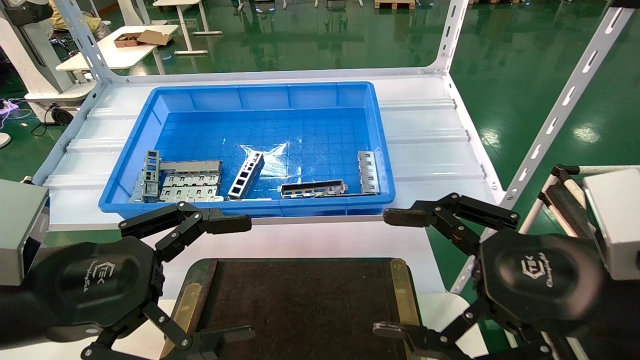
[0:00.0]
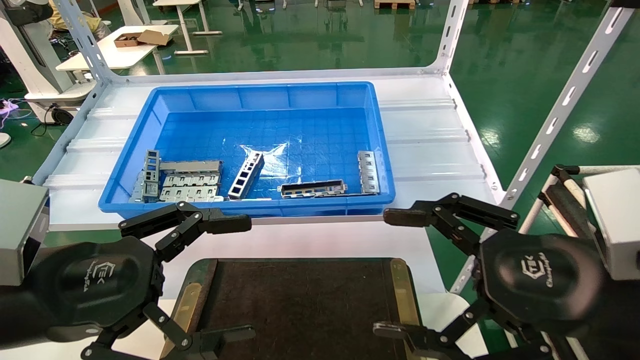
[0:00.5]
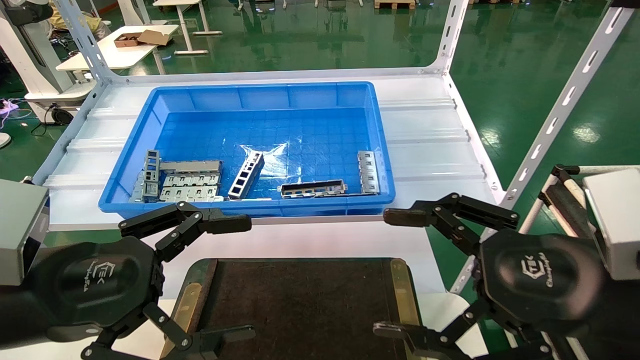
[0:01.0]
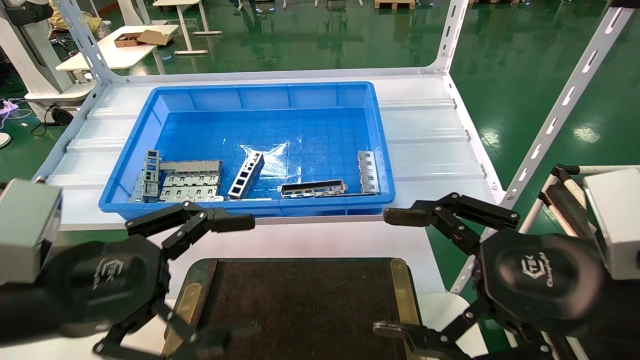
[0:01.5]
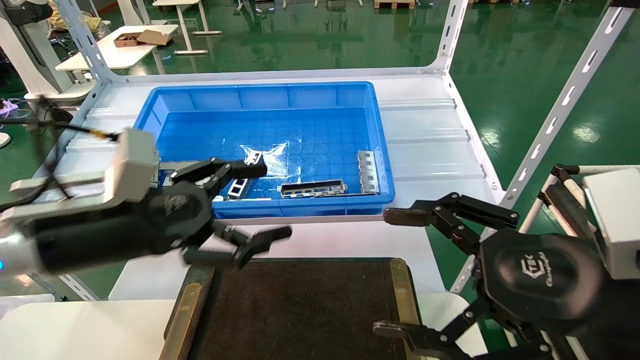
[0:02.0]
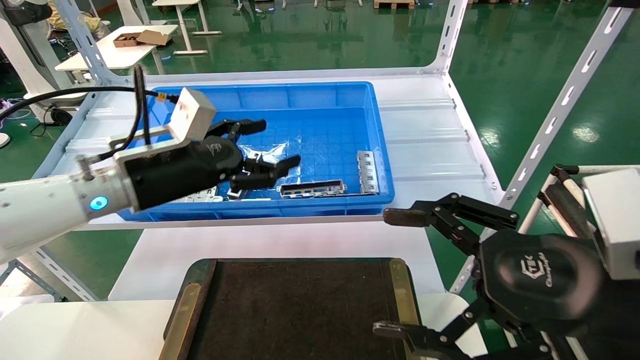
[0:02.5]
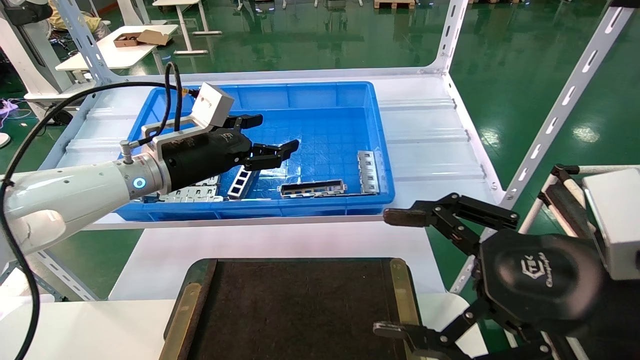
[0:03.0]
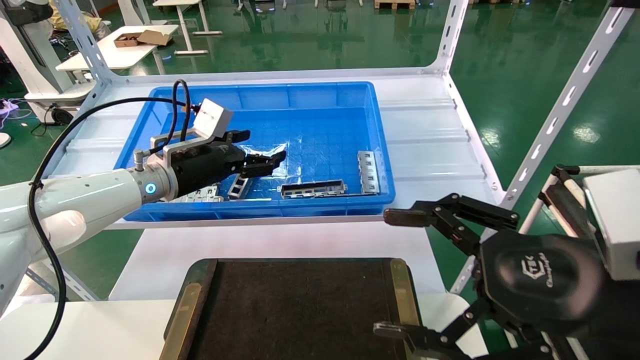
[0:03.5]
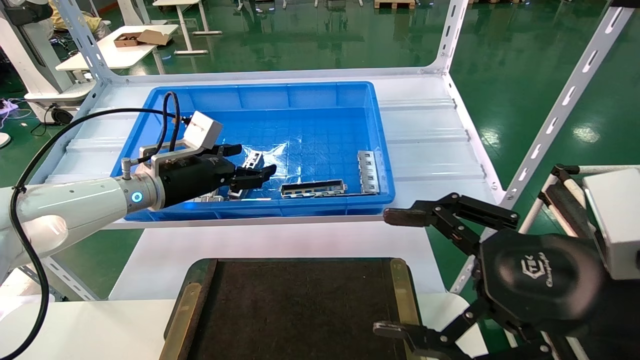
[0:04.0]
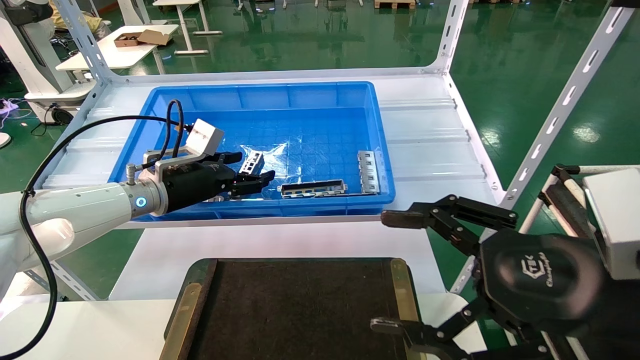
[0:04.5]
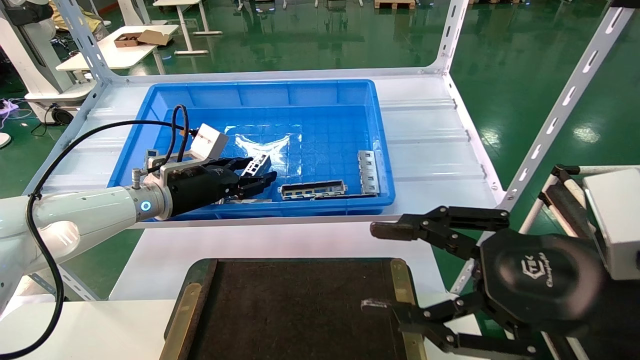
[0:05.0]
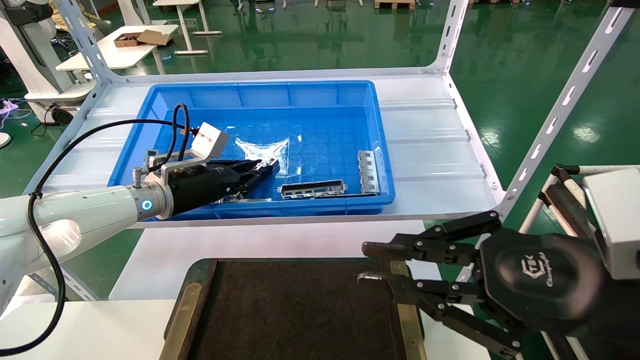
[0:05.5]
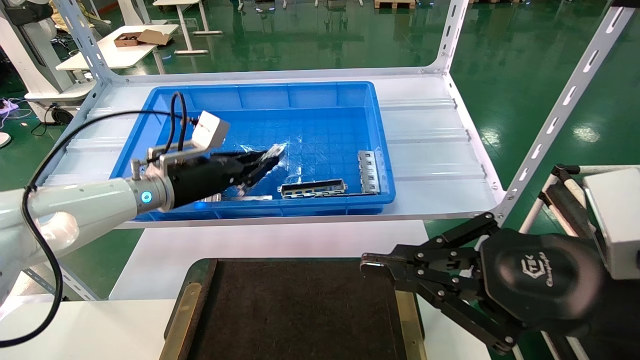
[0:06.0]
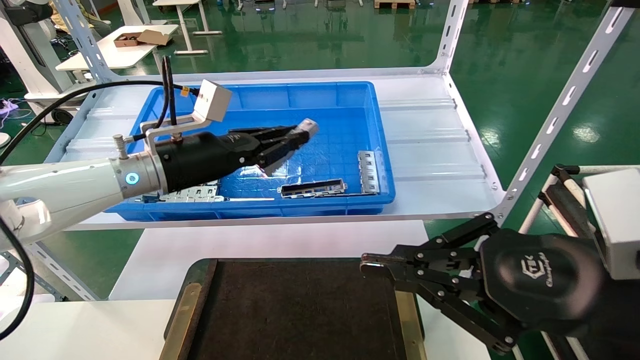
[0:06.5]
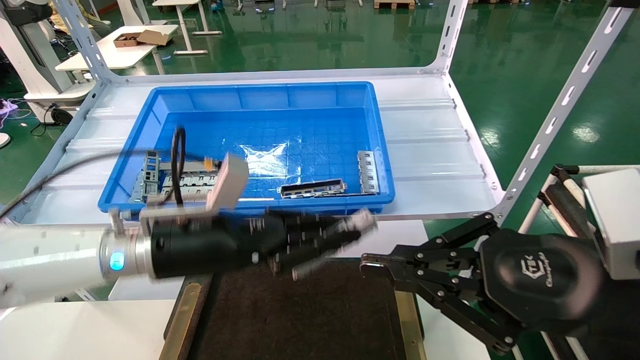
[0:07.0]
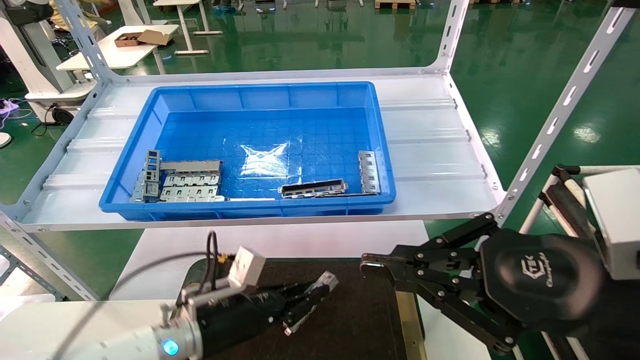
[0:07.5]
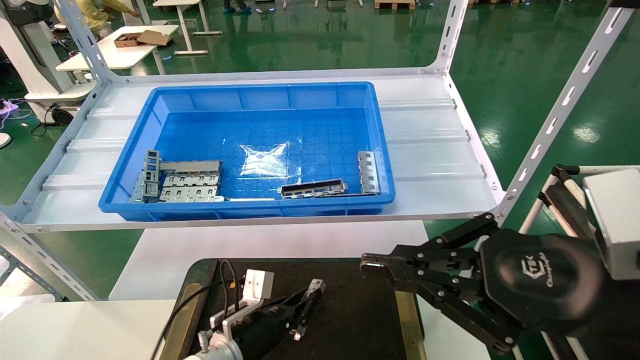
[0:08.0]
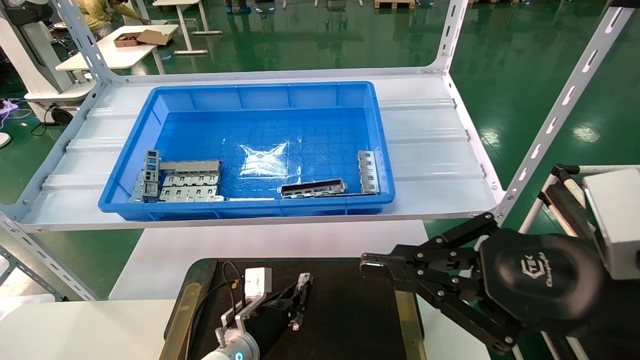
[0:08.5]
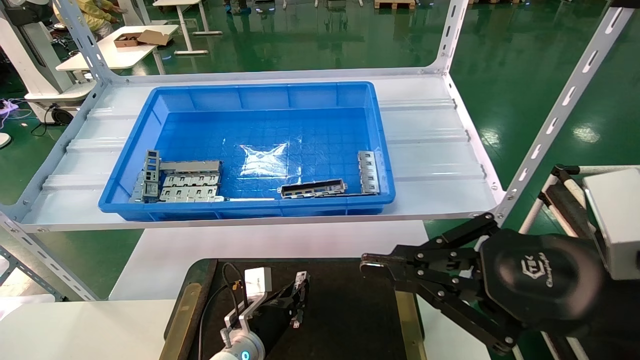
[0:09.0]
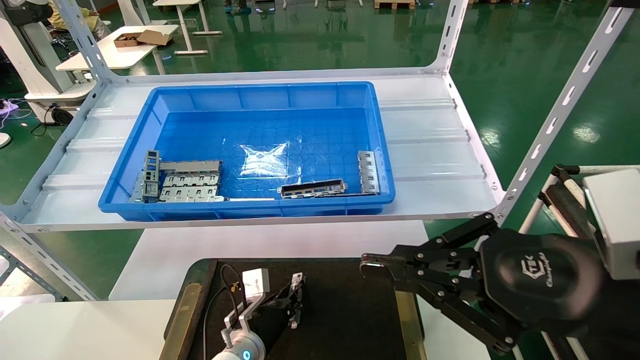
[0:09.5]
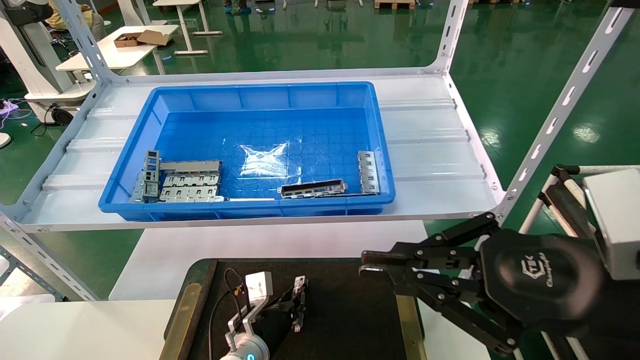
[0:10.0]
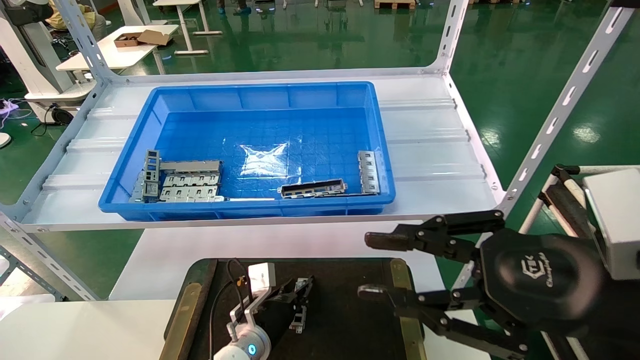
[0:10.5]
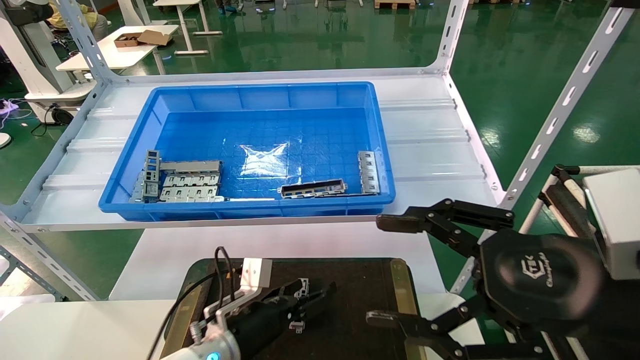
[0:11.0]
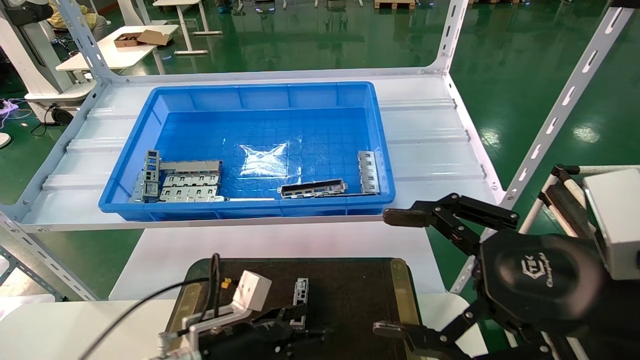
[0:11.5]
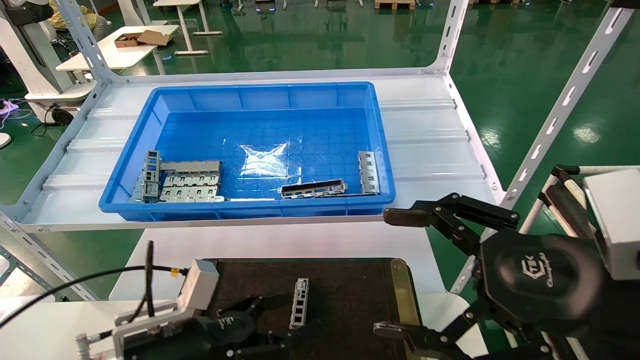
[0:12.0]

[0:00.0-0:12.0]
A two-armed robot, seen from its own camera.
Task of the whole recording: Grasp the part with one hand and place it on the black container.
Step, 0:02.0 to 0:06.0: Pick up the front USB bracket from the feeding area.
Step, 0:06.5 to 0:10.5: Place the front USB bracket into the box.
0:00.0 to 0:02.0: The left gripper moves forward, about 10 cm.
0:02.0 to 0:04.0: The left gripper is displaced forward by some 20 cm.
0:04.0 to 0:06.0: The left gripper closes its fingers; the right gripper closes up.
0:06.0 to 0:08.0: The left gripper goes approximately 25 cm downward.
0:08.0 to 0:10.0: The left gripper changes place by roughly 5 cm.
0:10.0 to 0:12.0: The right gripper opens, while the left gripper moves backward, upward and to the left, approximately 20 cm, and opens.
